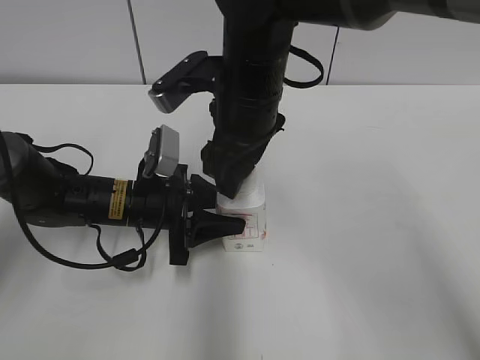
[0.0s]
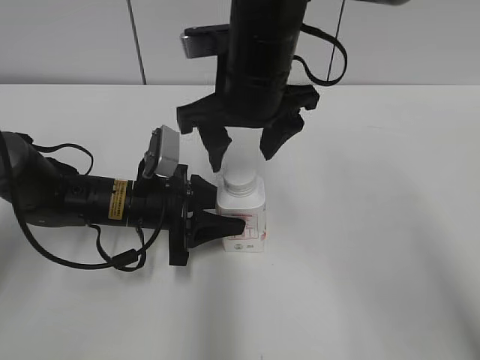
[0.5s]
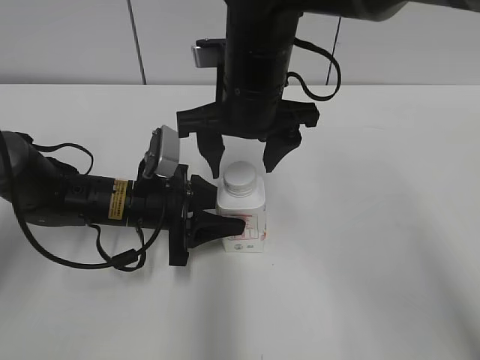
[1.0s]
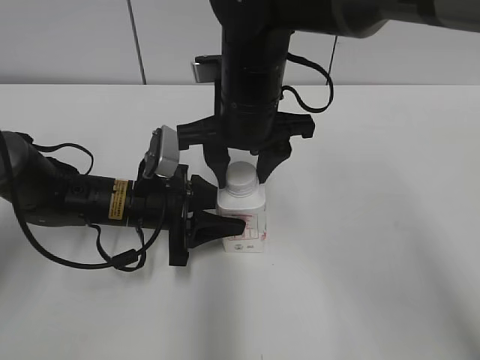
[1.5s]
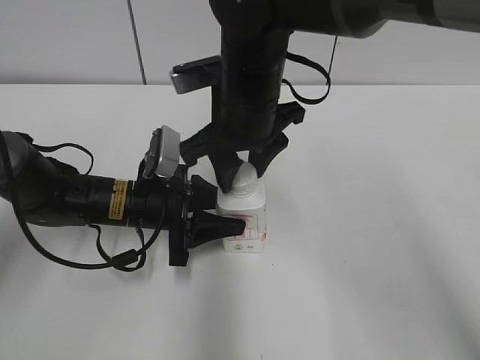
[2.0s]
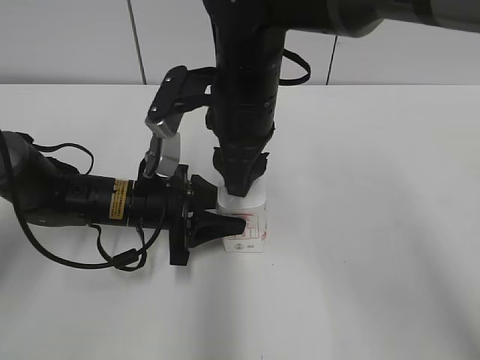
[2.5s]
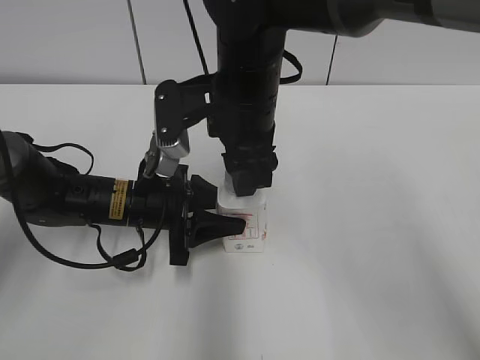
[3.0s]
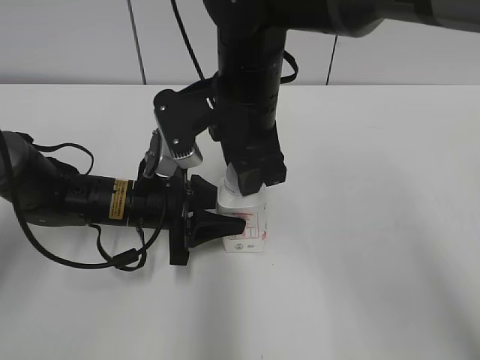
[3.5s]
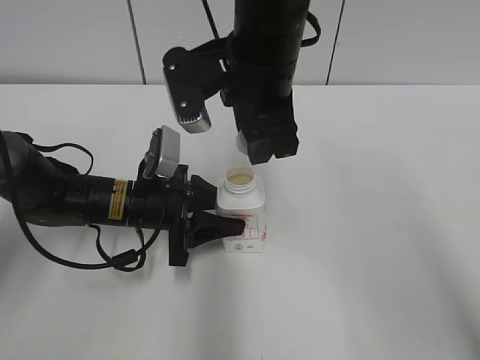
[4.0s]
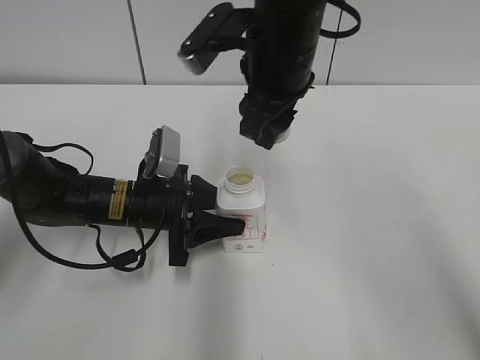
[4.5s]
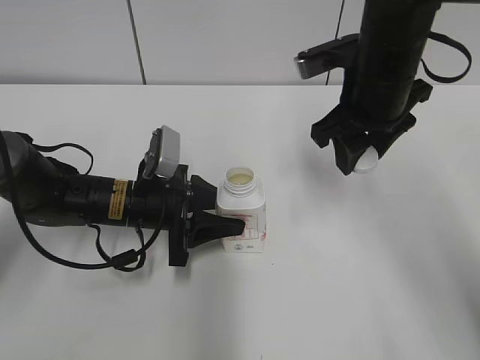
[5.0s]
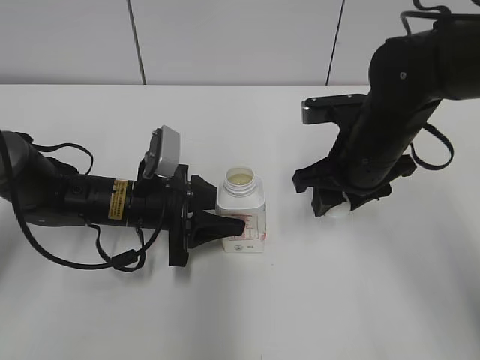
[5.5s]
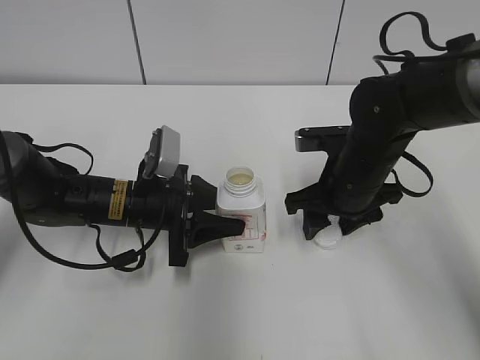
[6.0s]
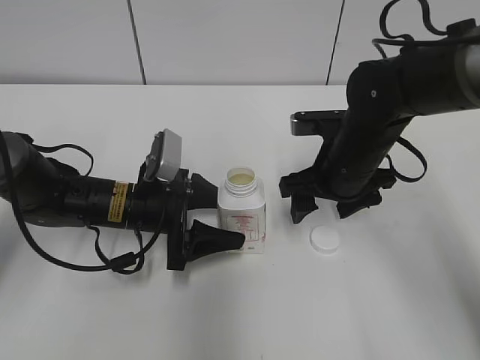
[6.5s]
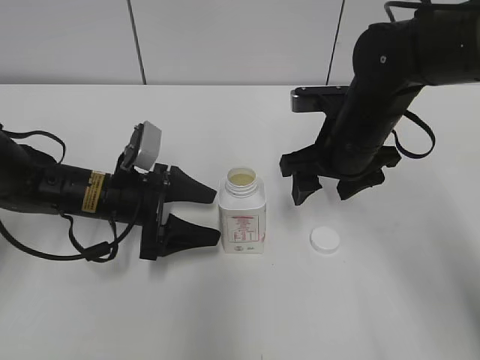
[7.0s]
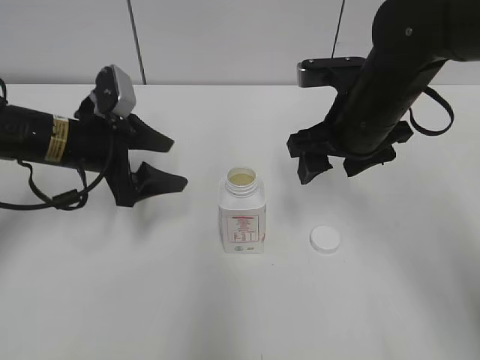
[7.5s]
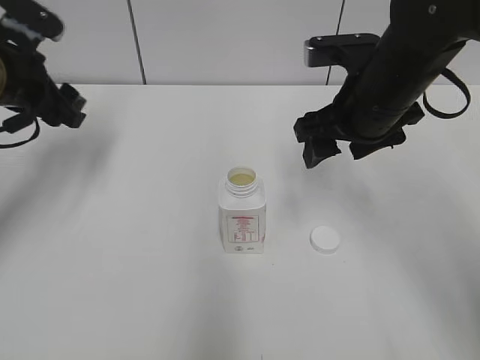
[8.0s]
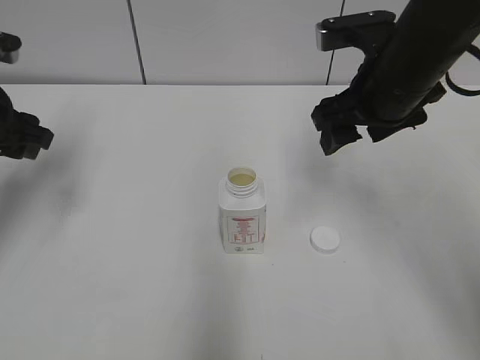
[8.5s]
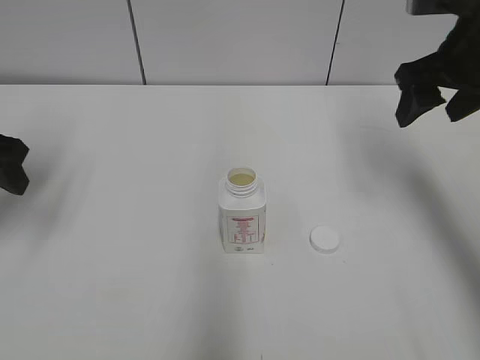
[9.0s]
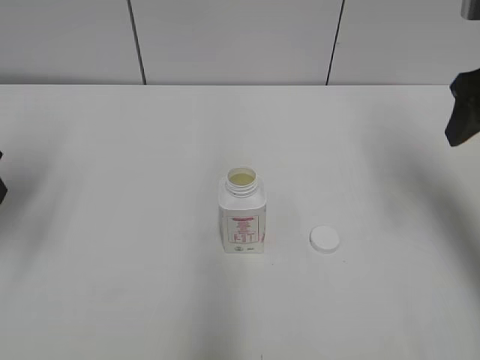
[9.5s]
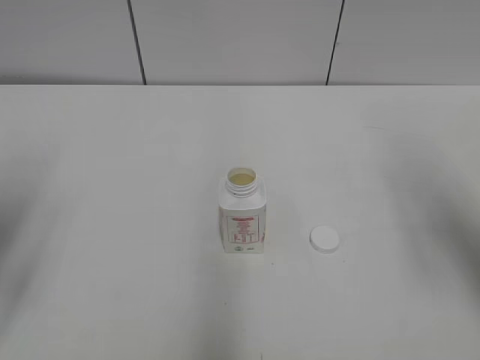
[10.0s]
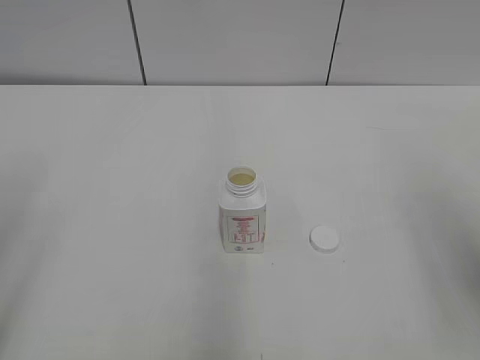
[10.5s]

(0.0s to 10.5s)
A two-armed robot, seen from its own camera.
Step, 0.0s - 3.5s: Unscrew the bottle cap with the right gripper while holding the bottle with the left gripper.
Step, 4.0s - 6.0s: Place the bottle cap on the table with the right gripper.
0.0s - 2.0s: The right gripper closes its fingers.
4.0s - 6.5s: The left gripper opens up; the right gripper shifts approximately 15 cm downward and to the right, and opens up.
6.5s - 8.5s: The left gripper moves to the left and upward, some 20 cm. The right gripper moves upward, roughly 10 cm.
8.5s - 10.5s: The right gripper shifts some 20 cm backward and to the right; the left gripper shifts about 20 cm backward.

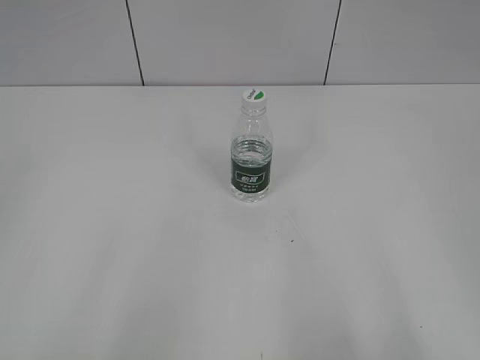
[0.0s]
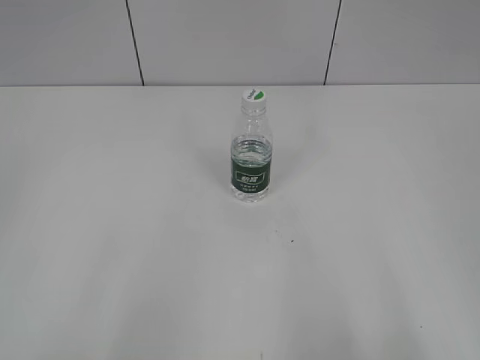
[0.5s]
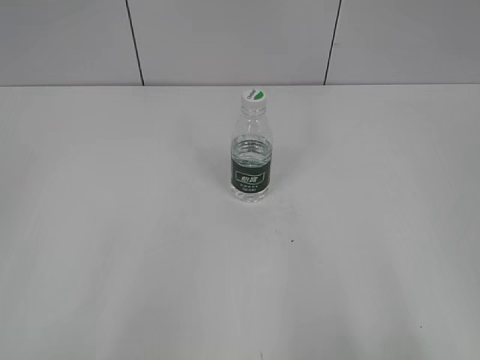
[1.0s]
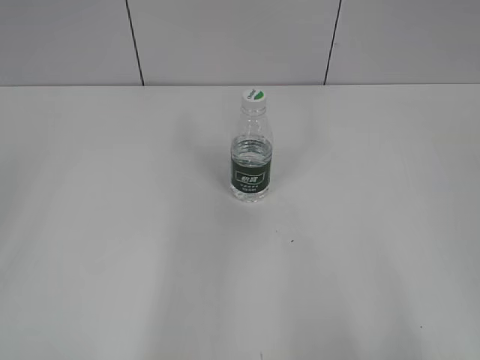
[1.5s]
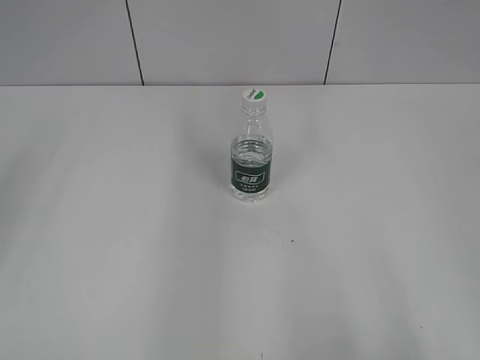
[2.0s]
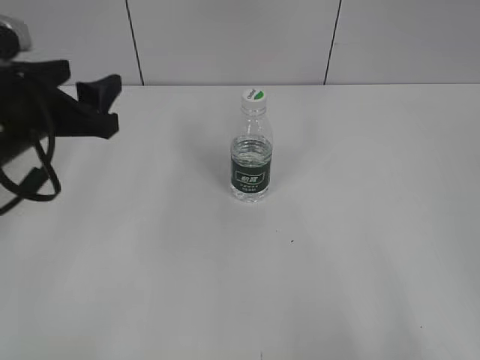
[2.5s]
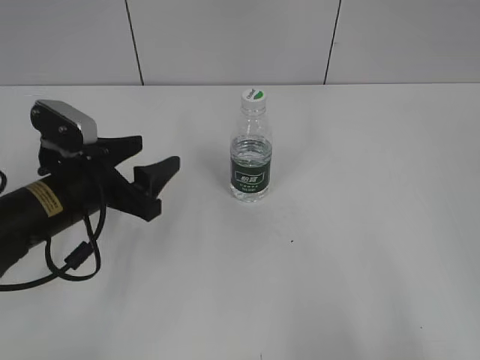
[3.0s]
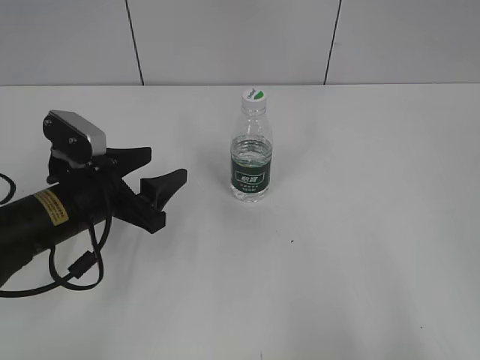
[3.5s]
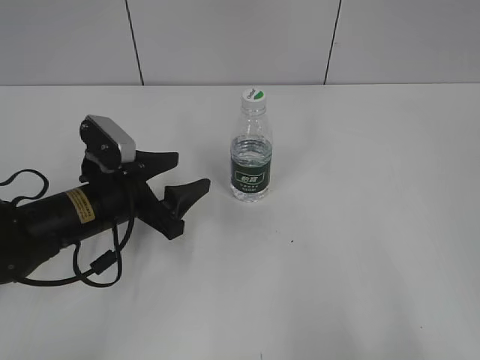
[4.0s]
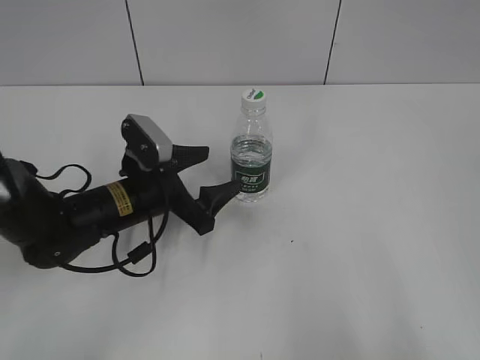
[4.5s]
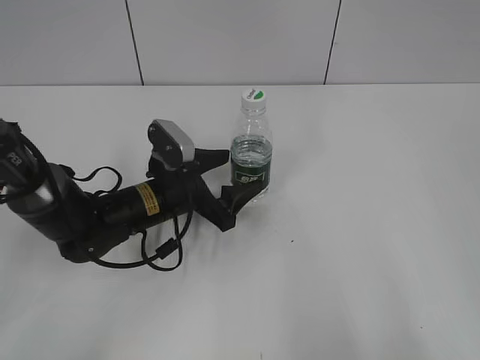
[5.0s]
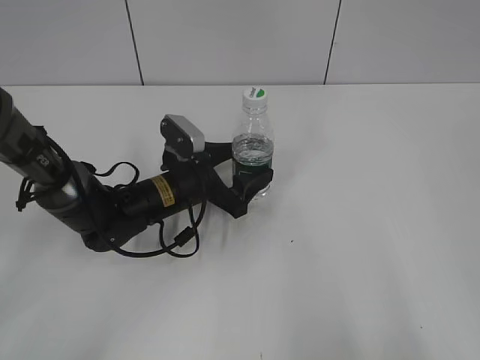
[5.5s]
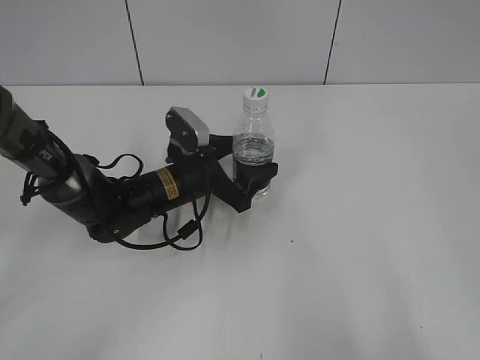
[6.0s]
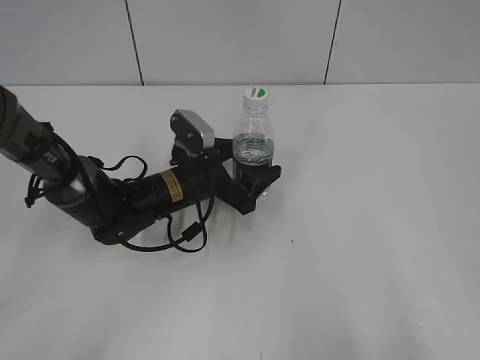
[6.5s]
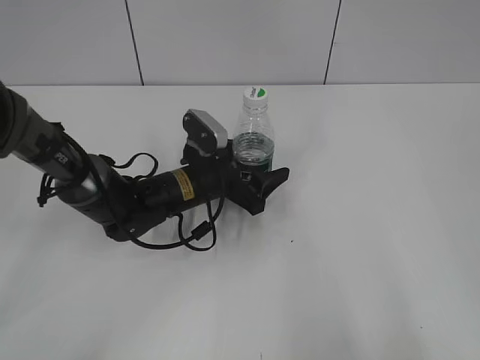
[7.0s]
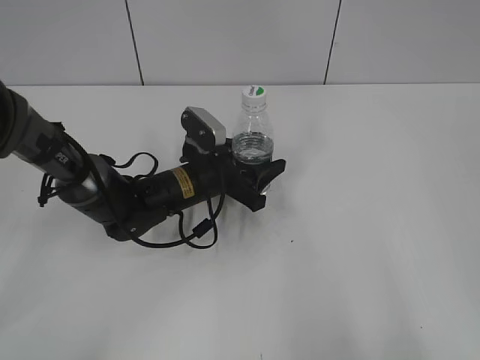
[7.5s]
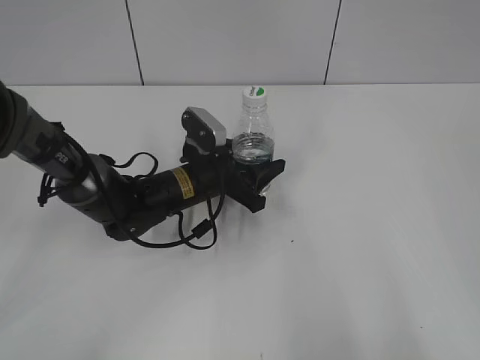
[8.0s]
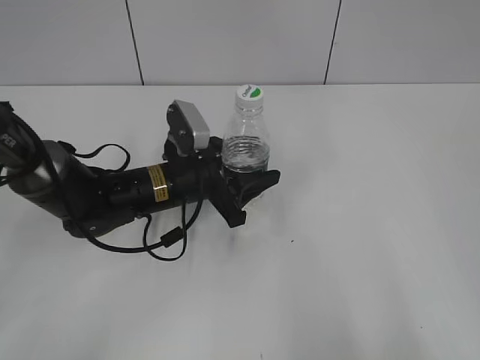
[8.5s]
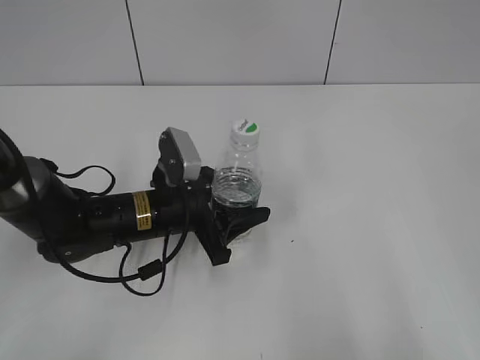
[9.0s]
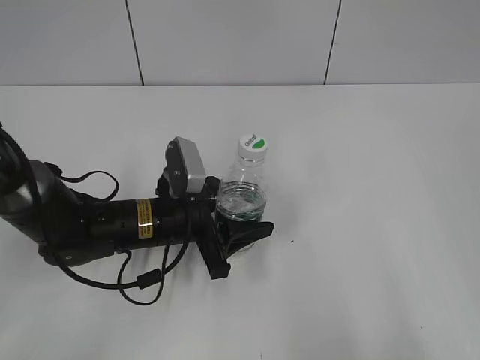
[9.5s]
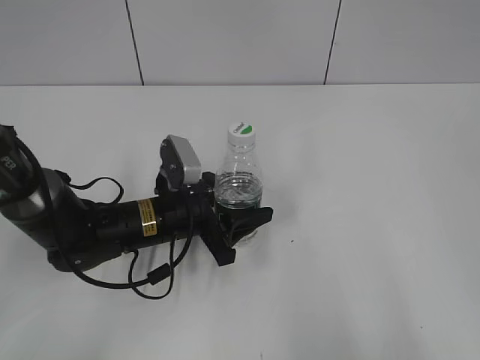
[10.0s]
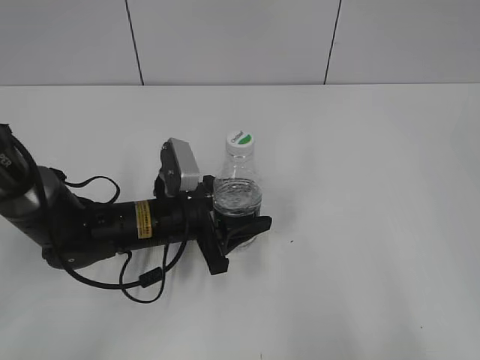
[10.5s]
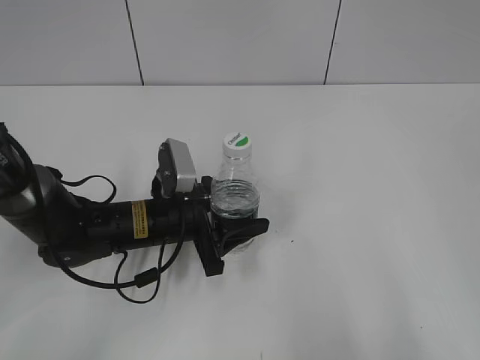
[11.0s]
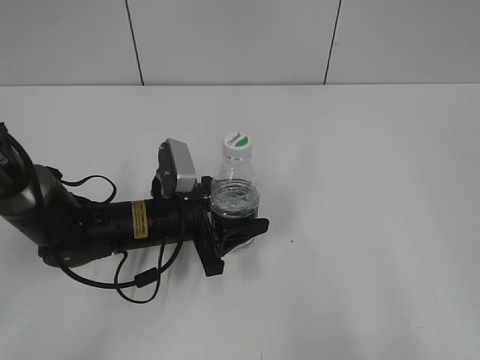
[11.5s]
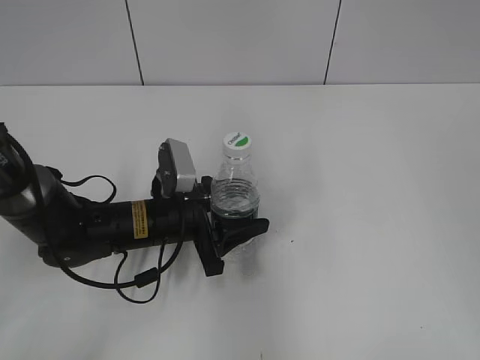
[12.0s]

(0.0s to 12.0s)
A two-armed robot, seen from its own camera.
Step, 0.0s - 7.5s: Grasp the bottle and move it to the center of the table with the left gripper.
2.0s - 4.0s: The left gripper shifts about 30 cm downward and to the right.
4.0s - 6.0s: The left gripper heads to the right and forward, covering some 10 cm, and opens up.
6.0s - 8.0s: The left gripper closes.
8.0s - 10.0s: The left gripper moves backward, about 5 cm.
10.0s - 12.0s: The right gripper moves upward and forward, roughly 10 cm.

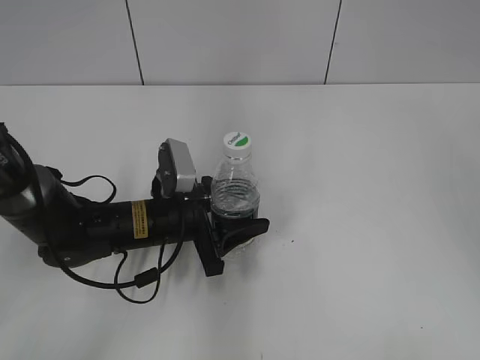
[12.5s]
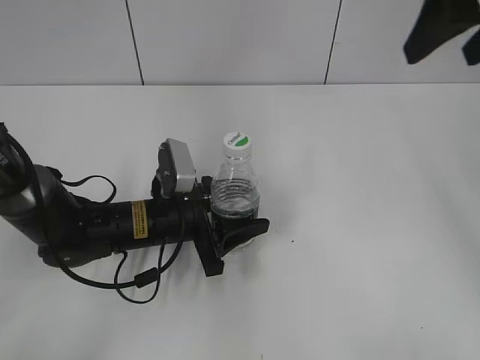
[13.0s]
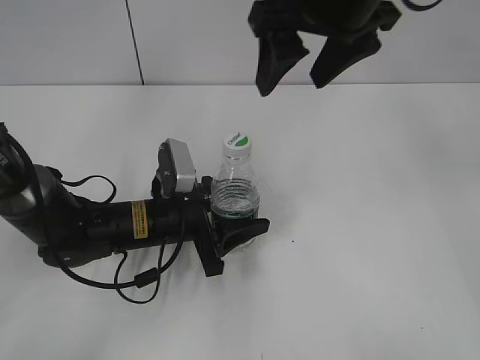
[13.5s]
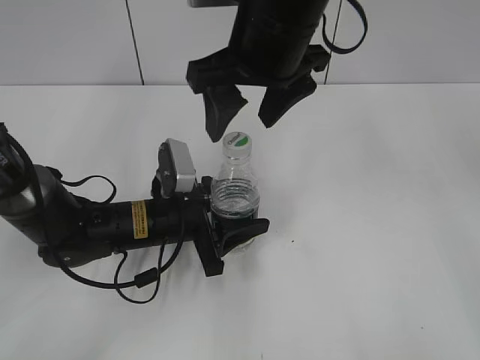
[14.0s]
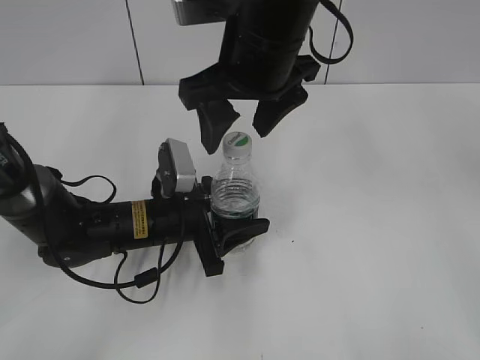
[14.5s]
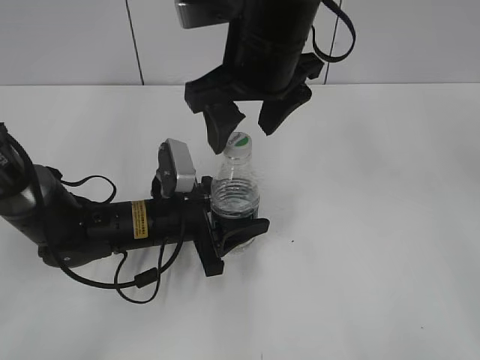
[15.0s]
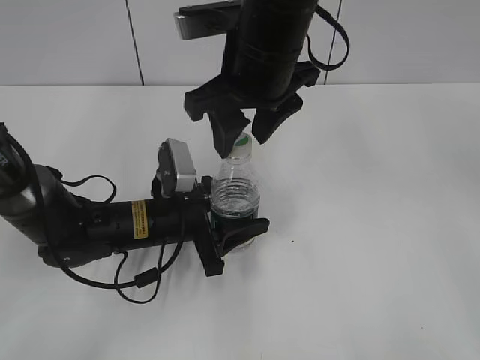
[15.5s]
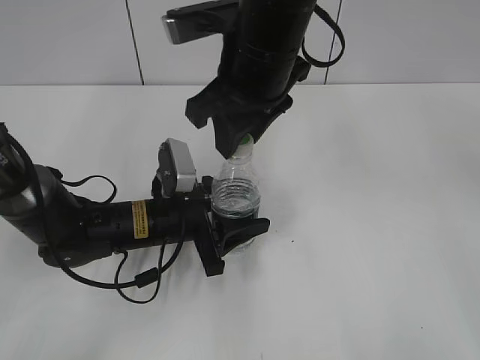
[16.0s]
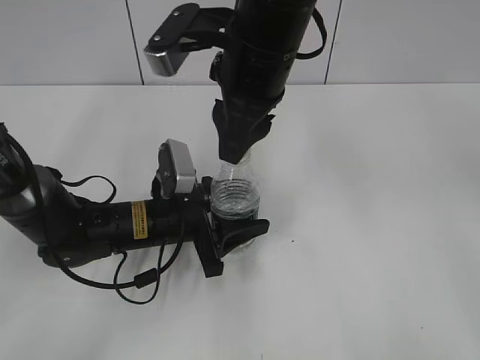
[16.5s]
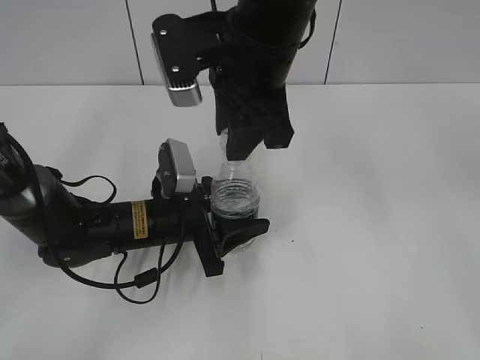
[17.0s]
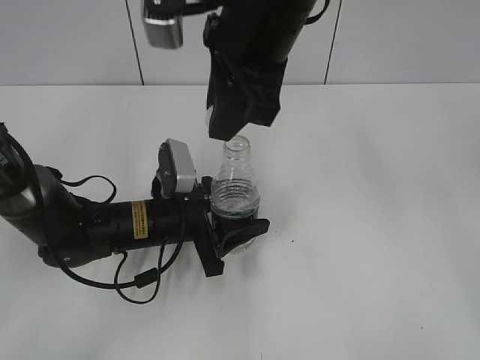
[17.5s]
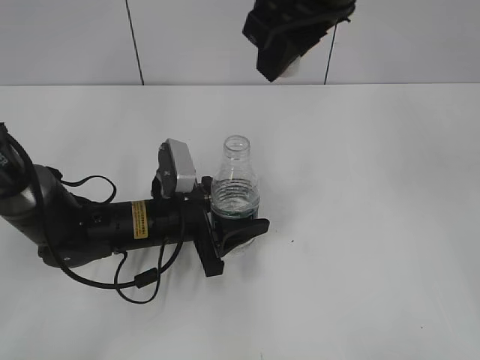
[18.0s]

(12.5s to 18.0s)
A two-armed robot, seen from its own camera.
Step, 13.0s - 17.5s: Unscrew the bottle cap with the right gripper while holding the bottle with the left gripper.
12.5s - 14.5s: The right gripper is displaced to the left and downward by roughly 25 cm.
14.5s - 16.0s: The right gripper closes its fingers.
16.0s - 18.0s: The right gripper goes approximately 10 cm upward.
